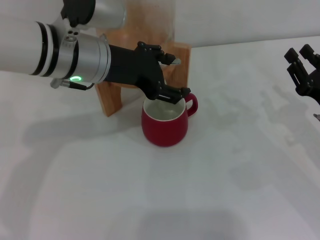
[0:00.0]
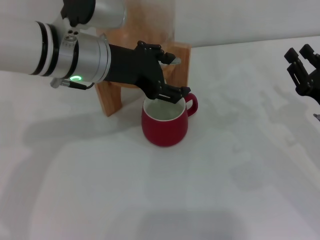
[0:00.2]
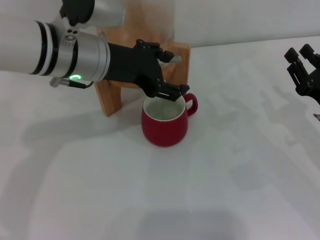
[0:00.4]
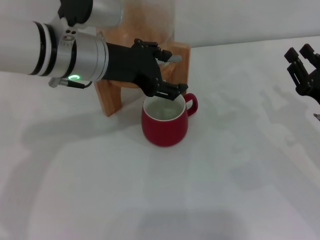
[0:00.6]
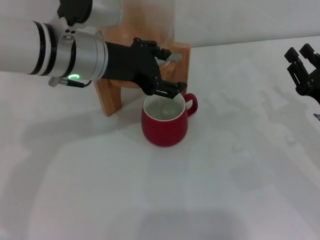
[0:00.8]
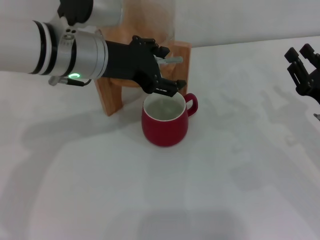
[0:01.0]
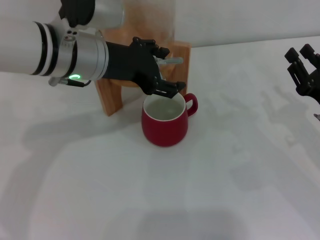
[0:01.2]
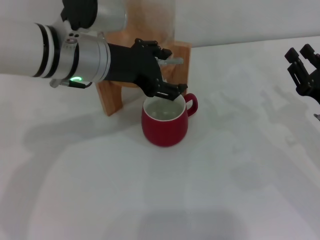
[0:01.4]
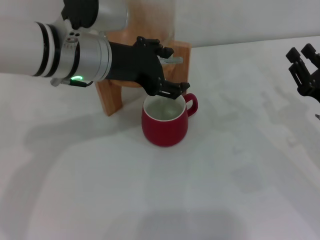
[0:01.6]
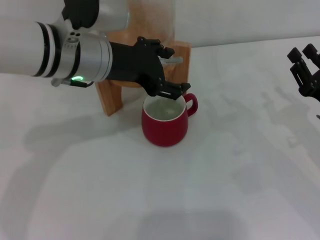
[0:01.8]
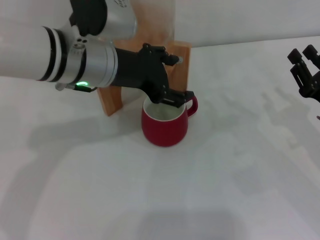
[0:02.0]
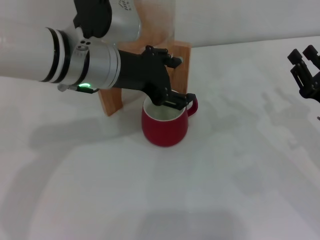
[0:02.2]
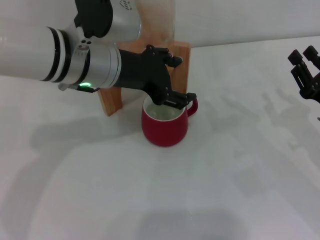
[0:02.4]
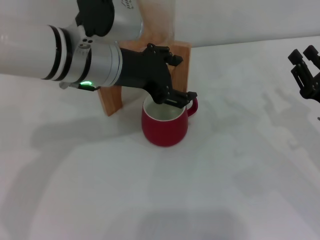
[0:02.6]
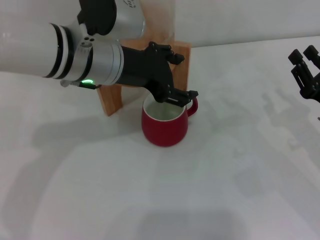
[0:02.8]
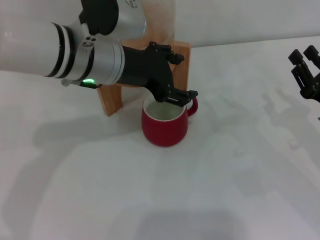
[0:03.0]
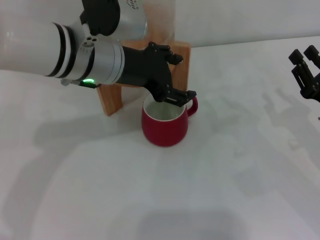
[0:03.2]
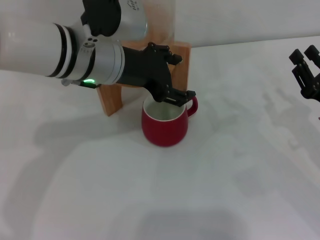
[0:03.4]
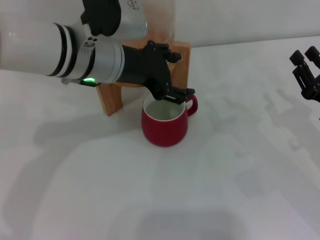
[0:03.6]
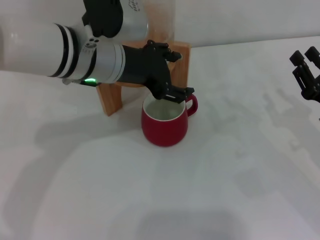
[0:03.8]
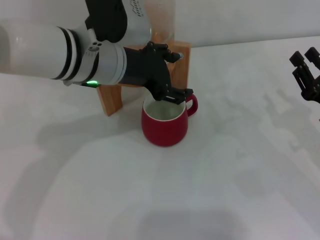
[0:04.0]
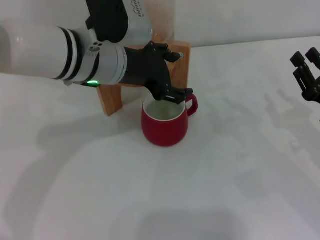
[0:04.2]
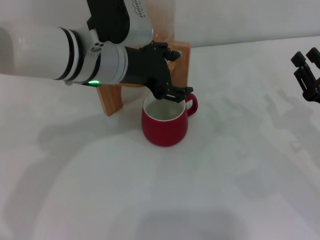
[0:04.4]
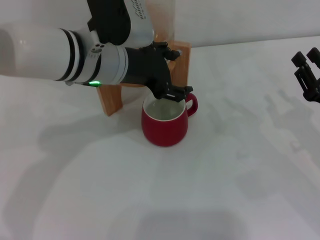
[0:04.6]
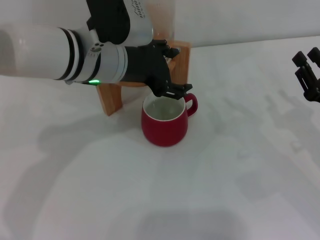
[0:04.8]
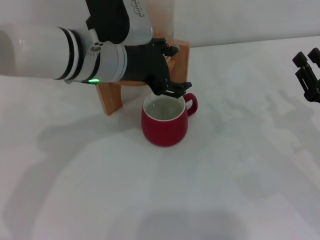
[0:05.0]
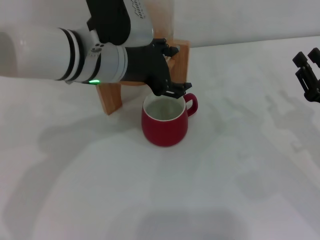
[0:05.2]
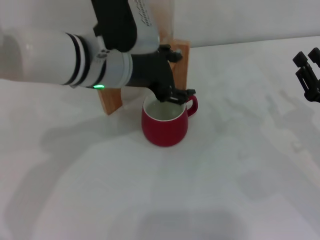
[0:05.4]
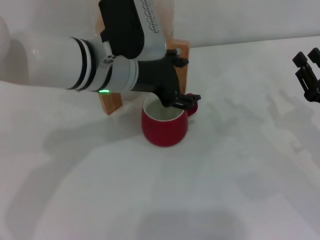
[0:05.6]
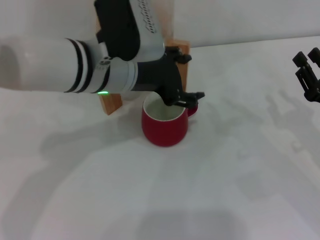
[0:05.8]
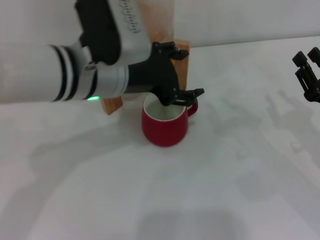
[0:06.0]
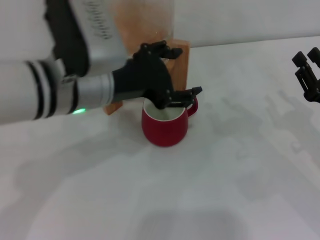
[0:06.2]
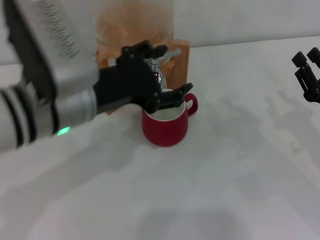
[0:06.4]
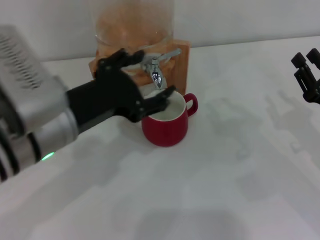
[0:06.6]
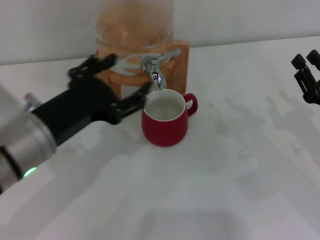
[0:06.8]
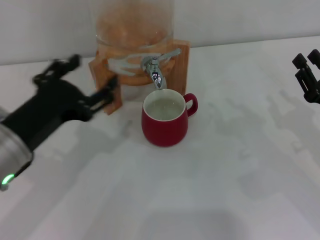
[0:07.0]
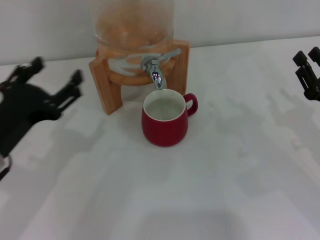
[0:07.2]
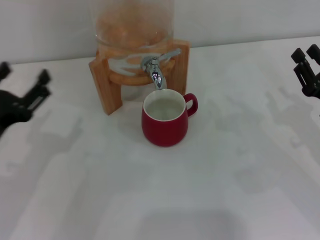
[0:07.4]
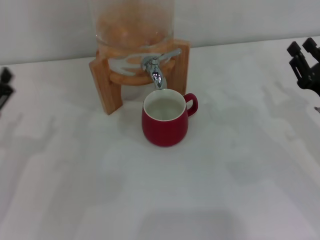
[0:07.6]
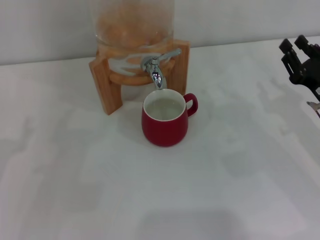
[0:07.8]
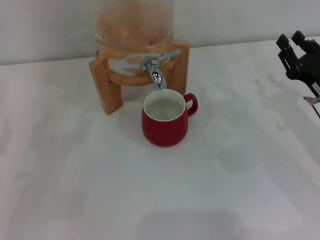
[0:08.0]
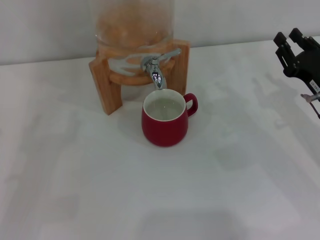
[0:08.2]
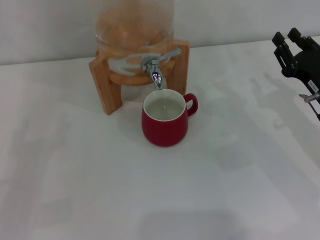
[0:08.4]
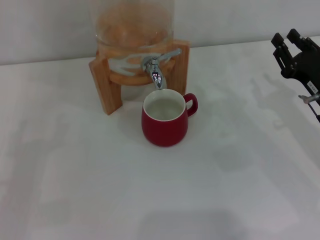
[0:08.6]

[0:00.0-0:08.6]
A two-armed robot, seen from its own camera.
Task of the whole recording: the right gripper pick up the red cup and place it horizontally under the faucet, the left gripper turn on the faucet to fill the cup, and then turn off the faucet.
Step, 0:00.0 to 0:06.4: Close the dispenser valve with the left gripper.
0:00.0 to 0:01.4: The two grippers keep their place.
0:01.4 to 0:05.8: There are only small adjustments of the grippers.
0:05.8 to 0:07.2: The left gripper moves to the left, backward and downward, about 20 cm.
0:07.2 to 0:08.6: The left gripper shifts about 15 cm to the left and downward. Meanwhile the right gripper moves approximately 5 cm.
